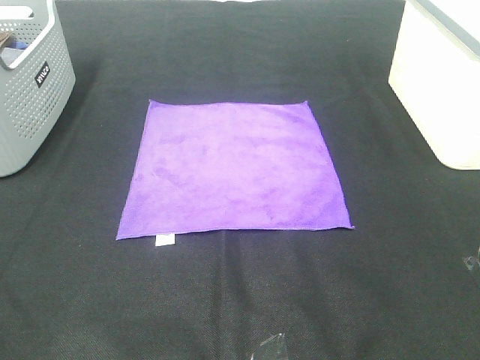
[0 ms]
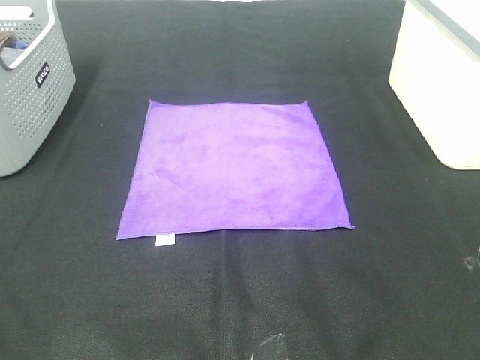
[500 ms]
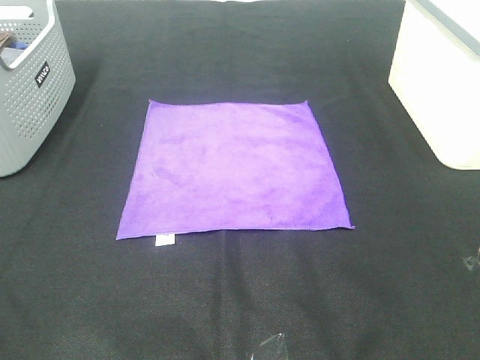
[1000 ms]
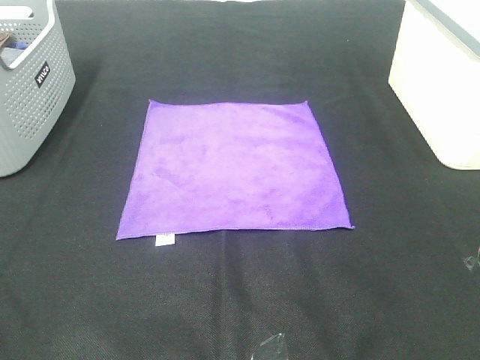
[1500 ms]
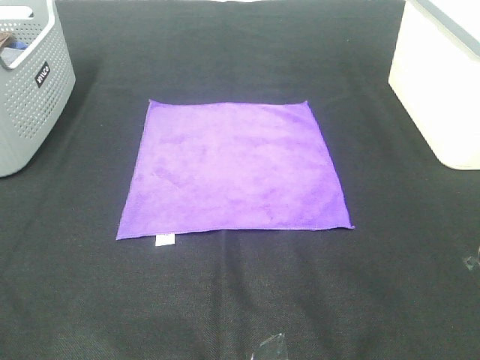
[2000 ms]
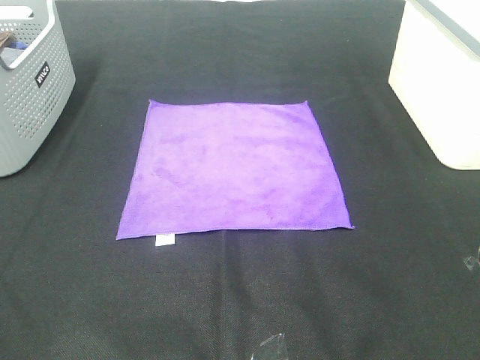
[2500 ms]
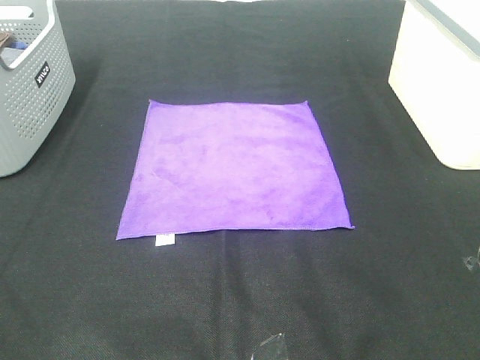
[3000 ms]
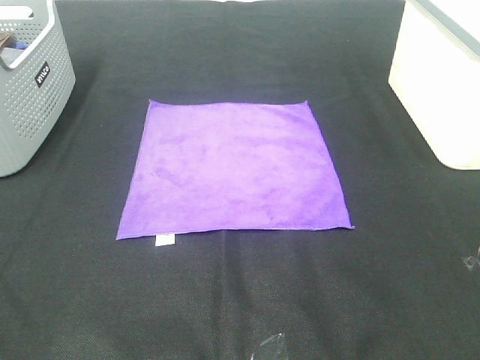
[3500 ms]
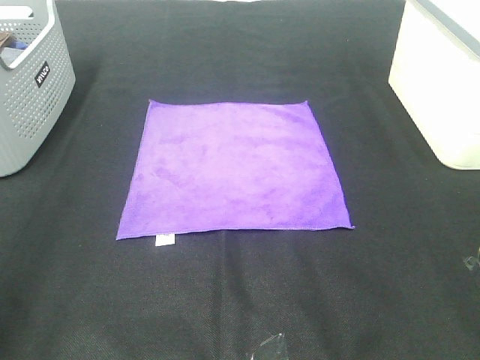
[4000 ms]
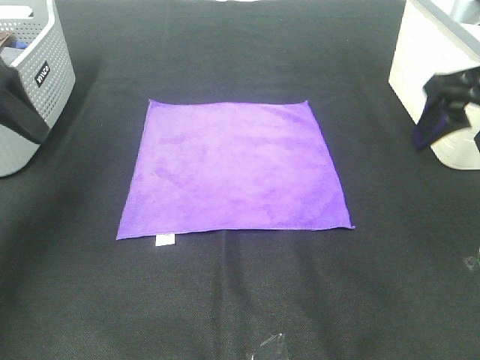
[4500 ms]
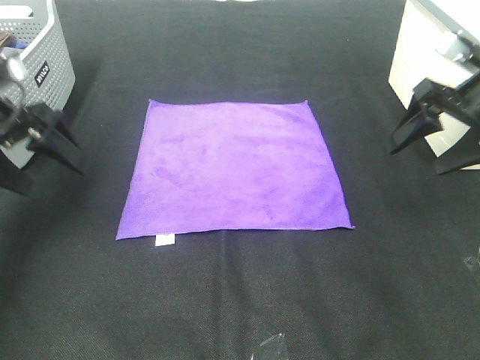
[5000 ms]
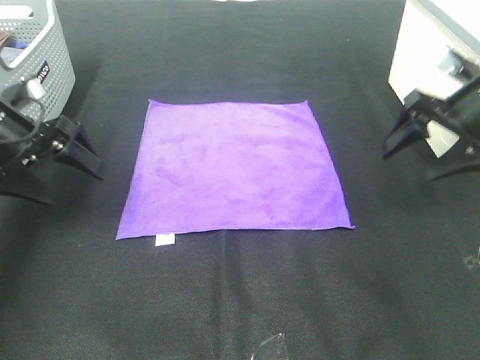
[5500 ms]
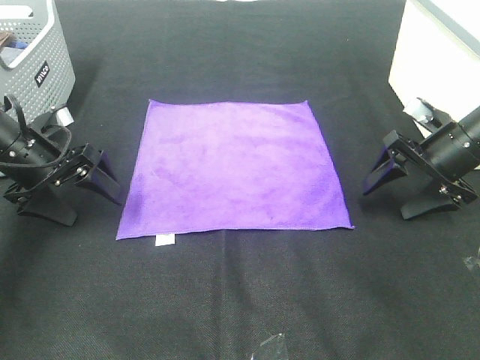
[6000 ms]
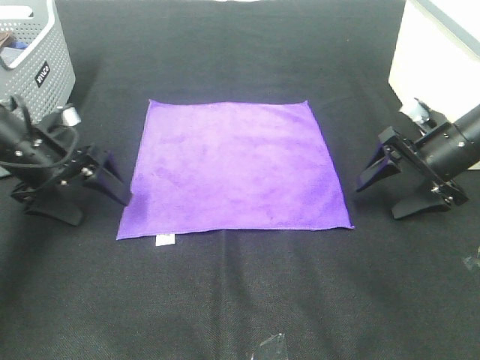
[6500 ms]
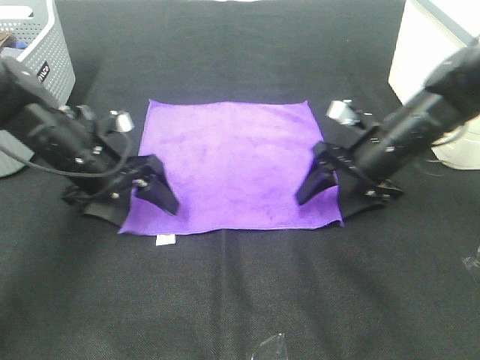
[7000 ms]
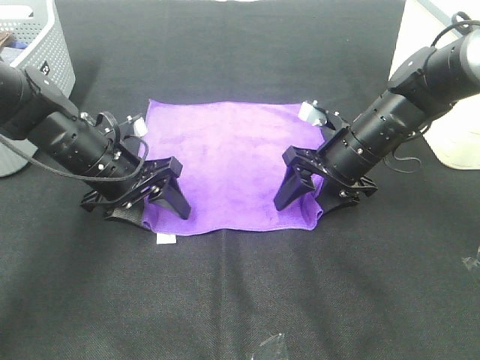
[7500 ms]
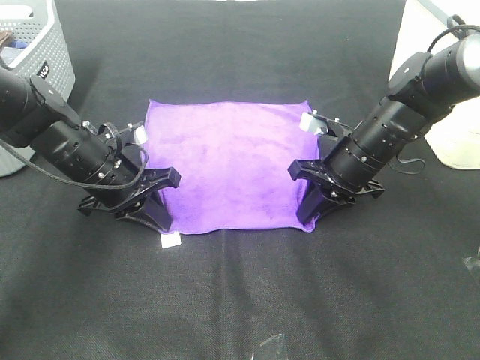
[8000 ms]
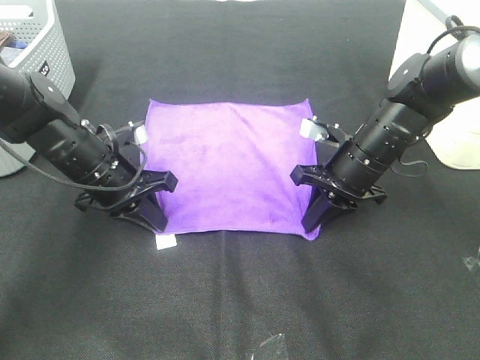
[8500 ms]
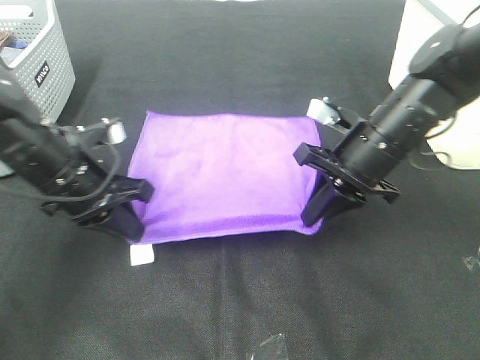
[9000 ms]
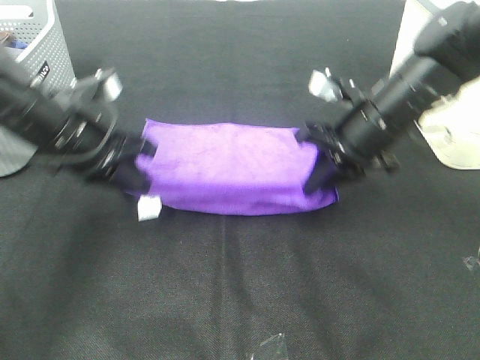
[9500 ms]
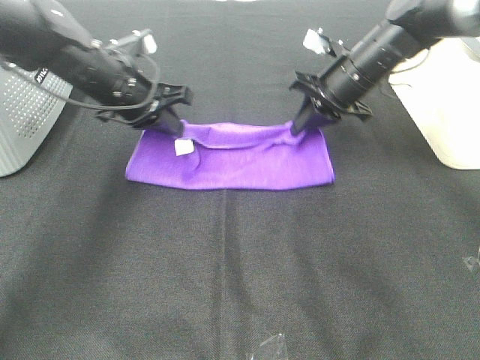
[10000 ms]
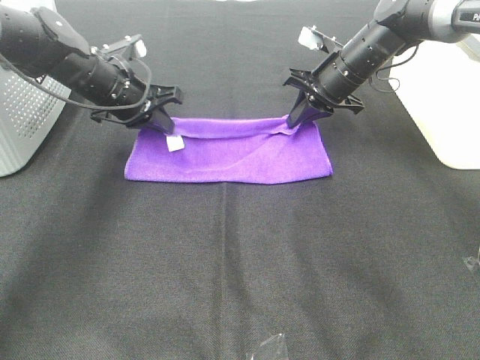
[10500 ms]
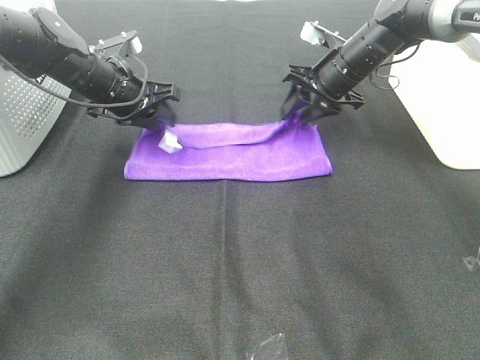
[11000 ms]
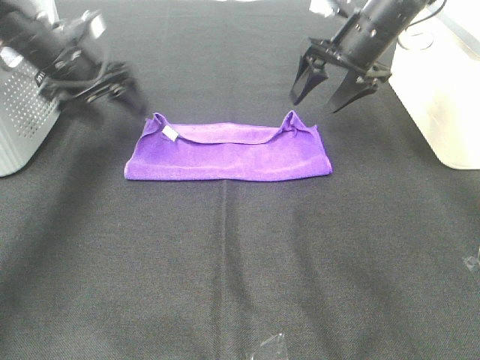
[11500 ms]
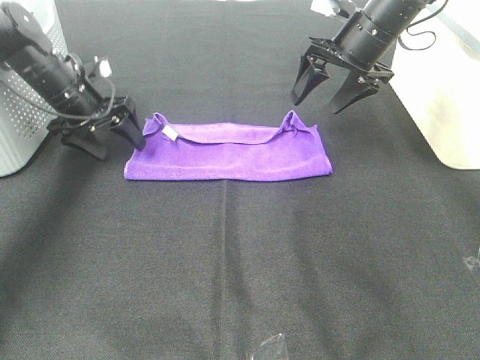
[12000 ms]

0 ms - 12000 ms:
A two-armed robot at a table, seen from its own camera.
Task of the whole recording: Fold towels.
Step, 0 ms - 8000 ms: Left hand: grab the bottom left corner of purple towel.
Step, 0 ms - 8000 ms: Right hand: grab the bottom right corner of purple towel.
Step, 8500 ms - 10500 ms: Left hand: fold the purple towel up.
Step, 8500 ms - 10500 ms: Right hand: fold the purple towel up.
0 ms - 2000 ms: Neither gripper changes place.
4000 ms - 6000 ms: The grippers both shift forward and downward by approximately 30 cm.
6000 ms - 8000 ms: The left gripper goes some 10 cm to the right, and closes up. The right gripper heads to the left, covering some 15 cm, and closes its fingers.
8000 ms - 10000 ms: Both grippers travel together forward and upward, about 10 cm.
10000 ms - 12000 ms: The right gripper moves upward, roughly 5 cm, and opens its fingers; the left gripper travels to the left and forward by roughly 10 cm, and opens up.

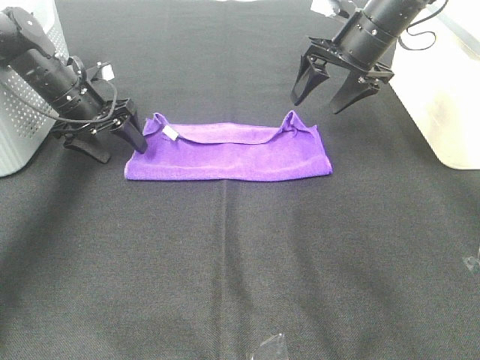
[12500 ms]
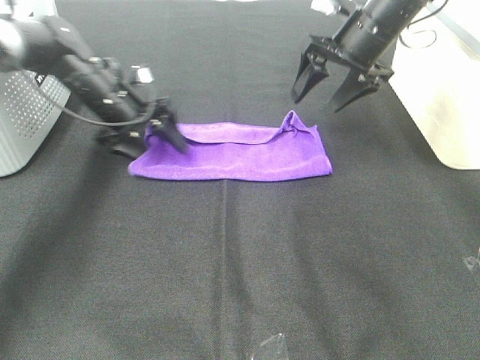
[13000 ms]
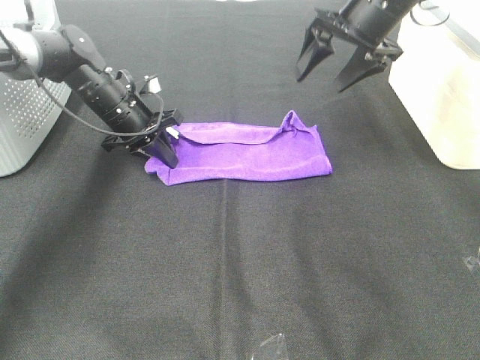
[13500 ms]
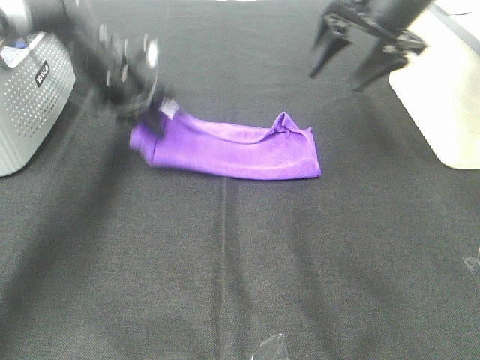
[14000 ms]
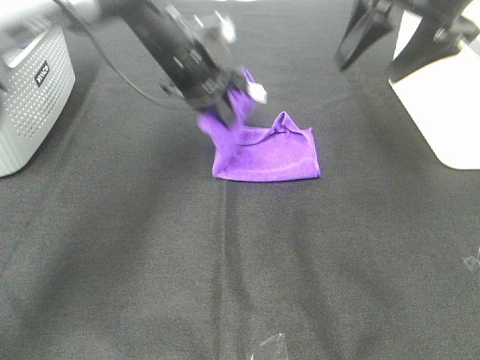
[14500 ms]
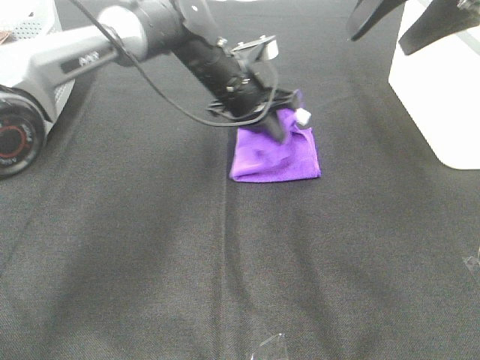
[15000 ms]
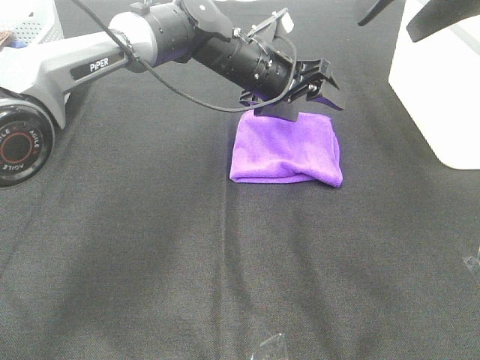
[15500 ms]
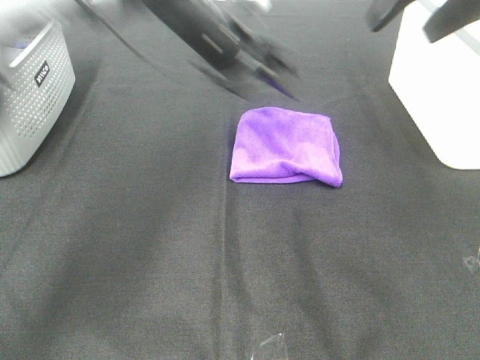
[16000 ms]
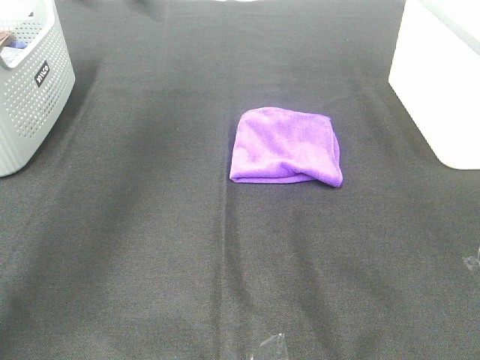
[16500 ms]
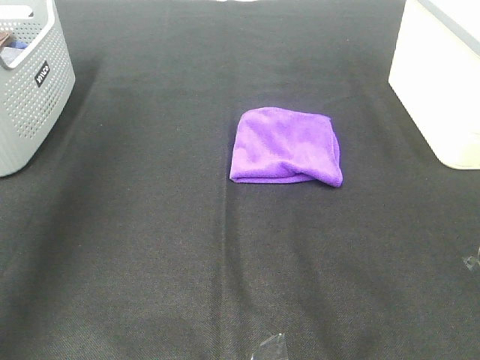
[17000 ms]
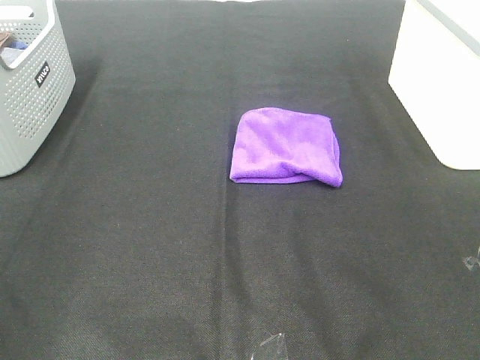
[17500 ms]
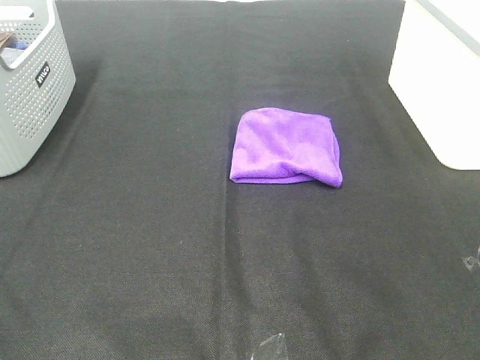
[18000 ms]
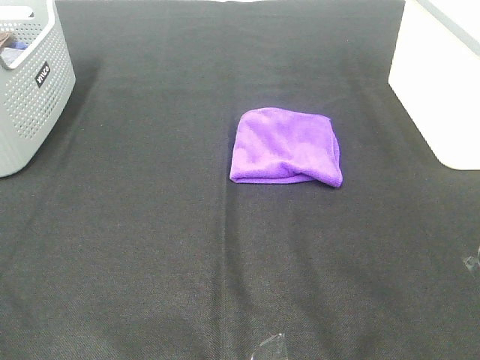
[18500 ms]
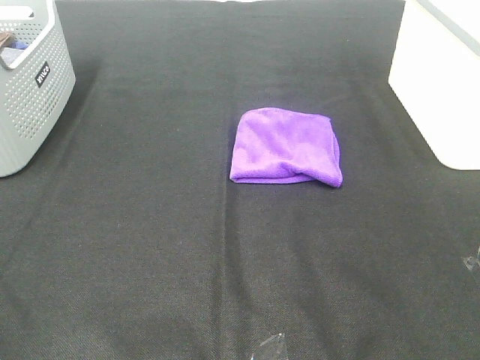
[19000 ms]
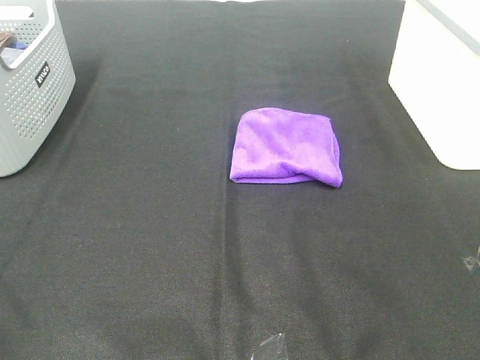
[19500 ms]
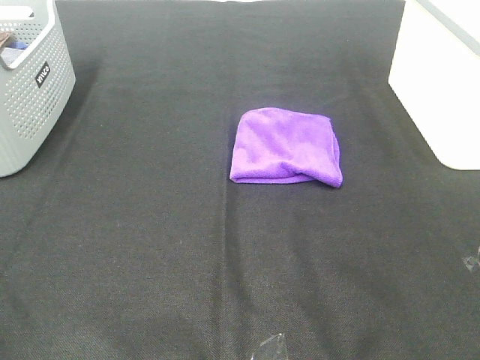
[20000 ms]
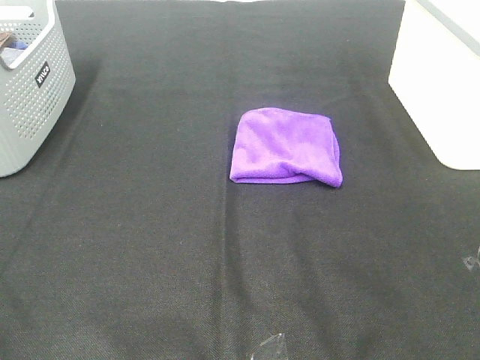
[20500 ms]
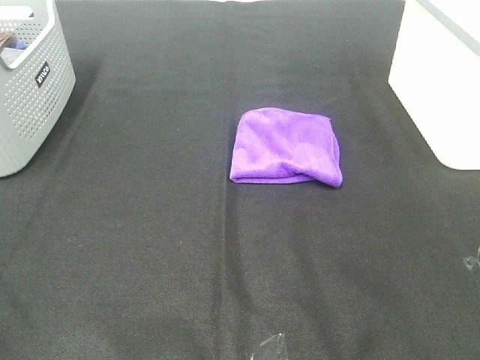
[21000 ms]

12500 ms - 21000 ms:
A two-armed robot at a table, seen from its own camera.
Task of the whole recording: Fold towels.
Step, 12500 ms - 15000 ms: Left hand: fold the purple towel from left to right.
12500 ms - 14500 ms: The left gripper heads to the right, covering about 20 cm, and closes. Meanwhile the right gripper moves upward and backward, some 15 cm.
14500 ms - 16500 ms: The left gripper goes some 25 cm upward and to the left, and opens its fingers; the right gripper shifts approximately 15 cm backward and upward.
16500 ms - 19000 ms: The right gripper is displaced backward and downward by about 30 cm. The left gripper goes about 50 cm backward.
